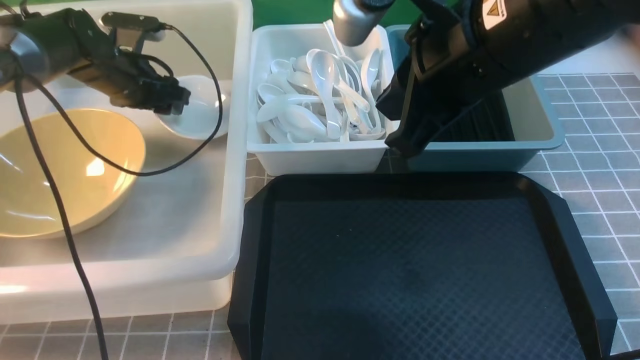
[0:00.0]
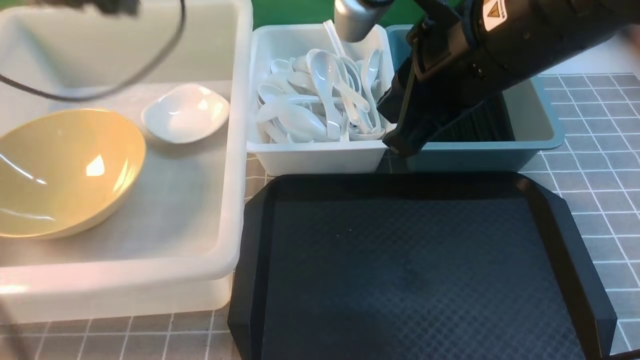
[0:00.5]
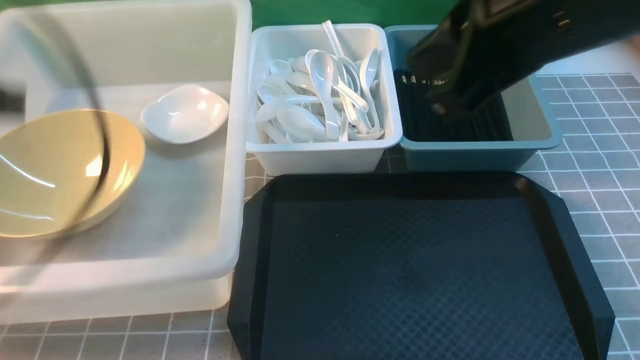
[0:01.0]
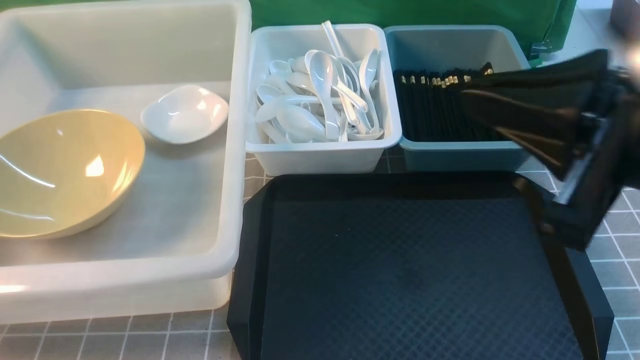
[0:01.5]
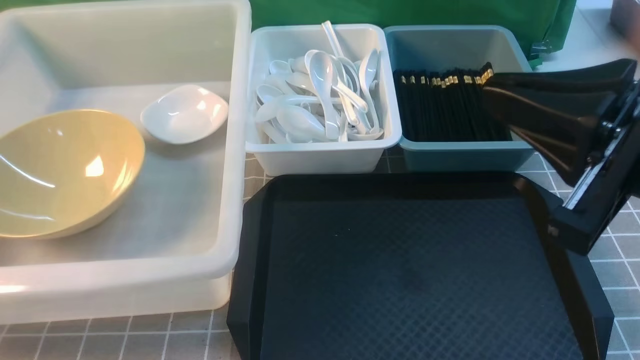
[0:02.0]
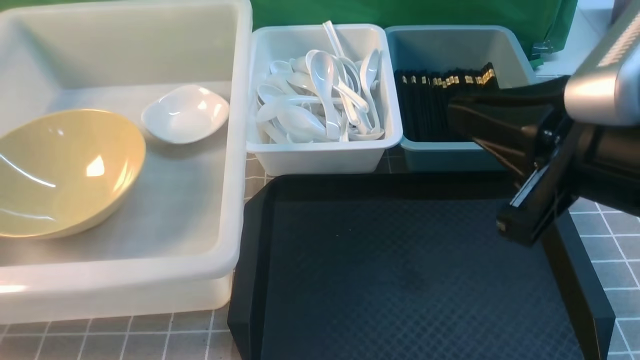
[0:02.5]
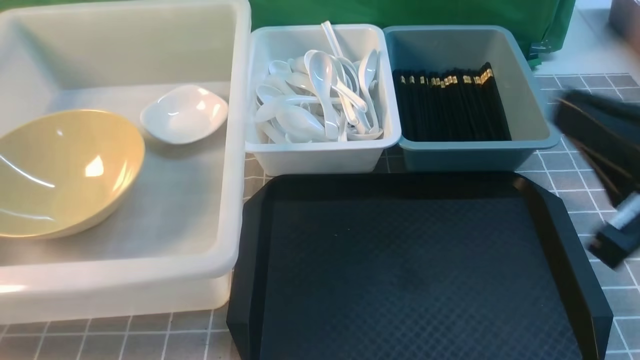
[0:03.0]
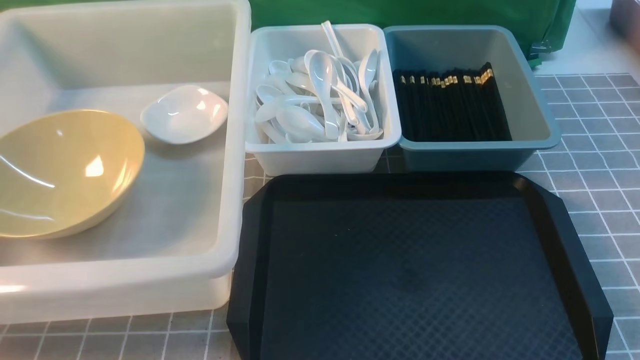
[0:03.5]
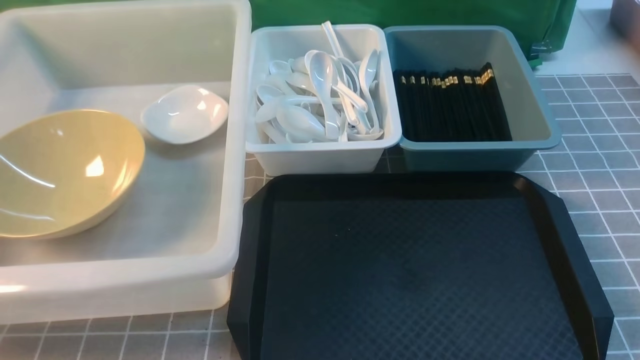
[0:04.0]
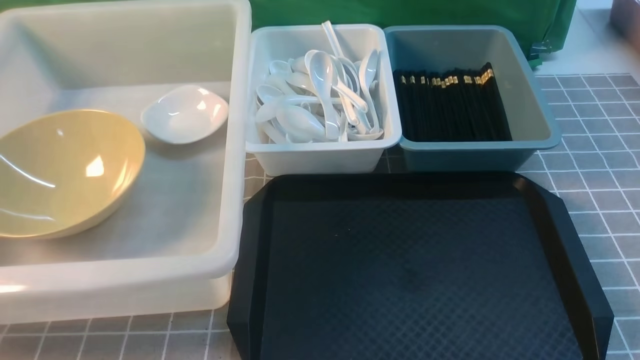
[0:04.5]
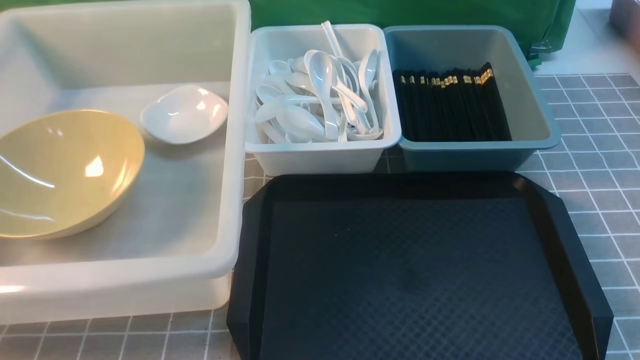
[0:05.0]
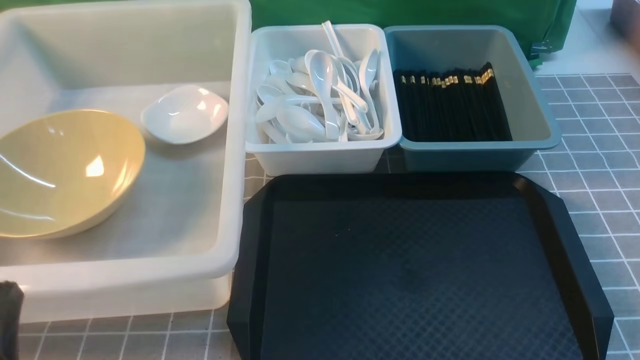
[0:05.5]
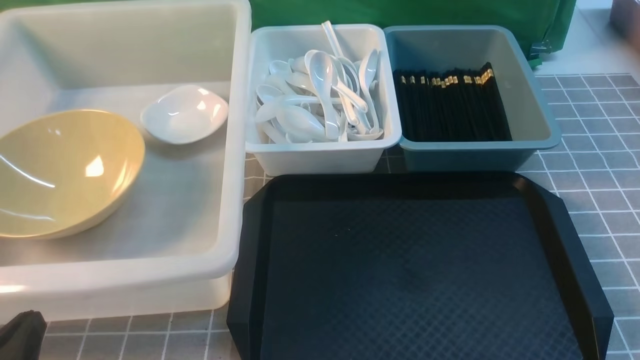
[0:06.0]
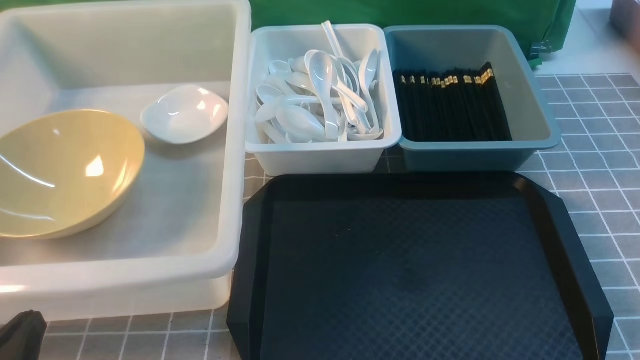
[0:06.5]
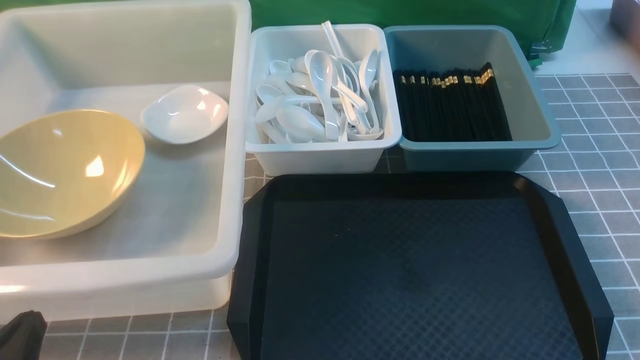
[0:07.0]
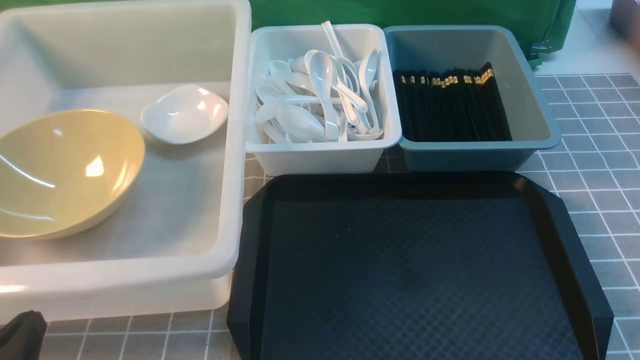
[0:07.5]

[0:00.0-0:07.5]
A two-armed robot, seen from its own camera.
Task of the whole recording: on grey table put chopsticks spoon bowls plates into blue grey white boxes.
0:00.0 to 0:02.0: The right gripper goes some 15 cm backward and to the right; the left gripper moves backward, approximately 50 cm, and closes up.
0:02.0 to 0:04.0: The right gripper goes some 25 cm downward, to the right and backward.
0:04.0 to 0:05.5: The left gripper moves downward, about 10 cm.
